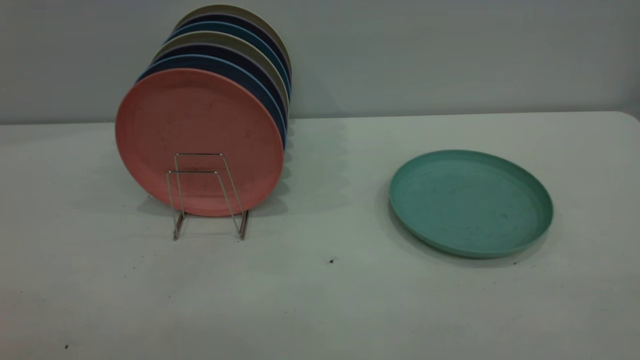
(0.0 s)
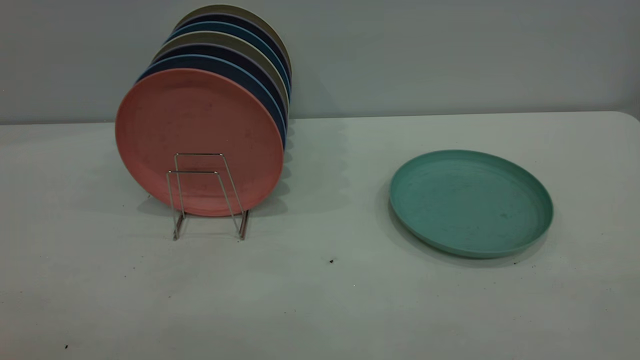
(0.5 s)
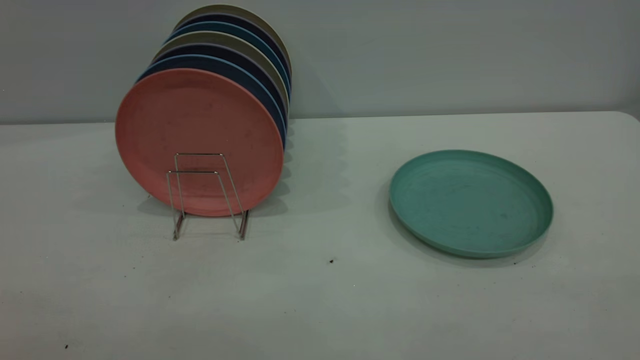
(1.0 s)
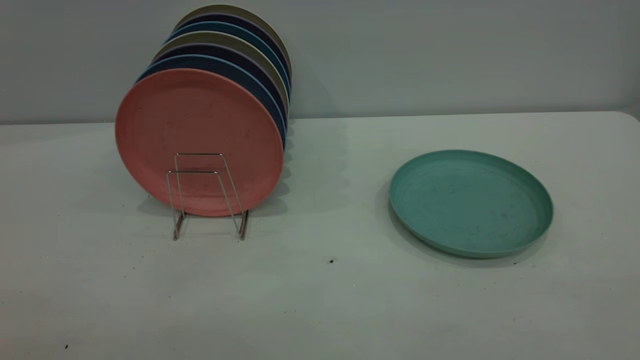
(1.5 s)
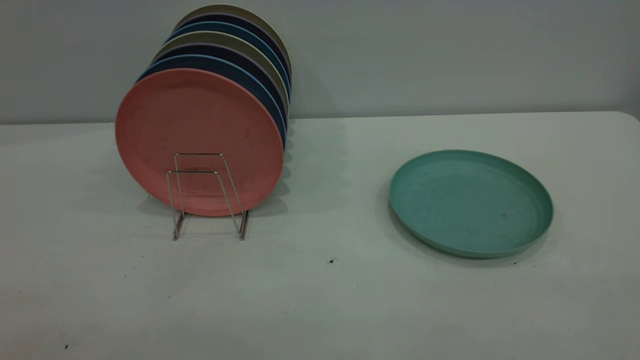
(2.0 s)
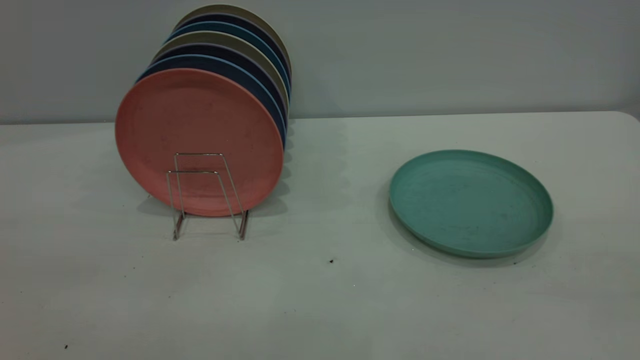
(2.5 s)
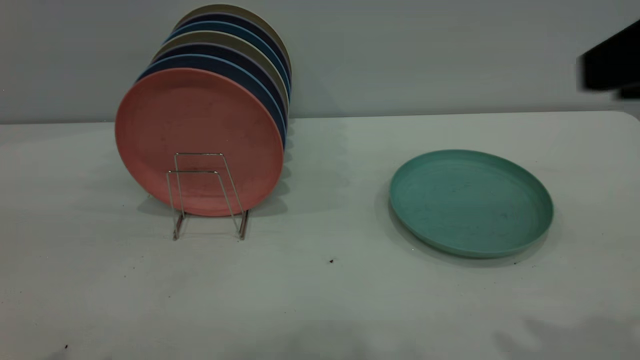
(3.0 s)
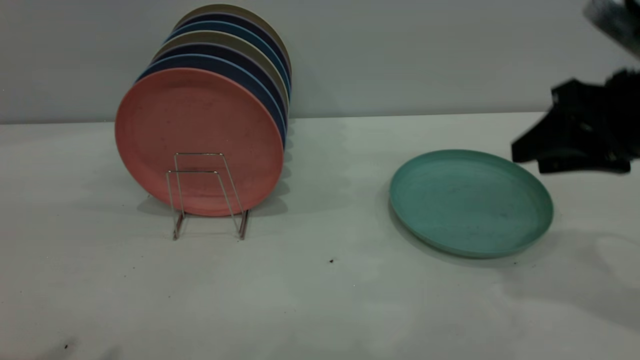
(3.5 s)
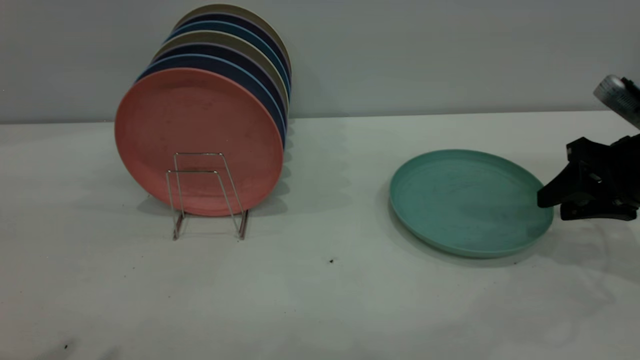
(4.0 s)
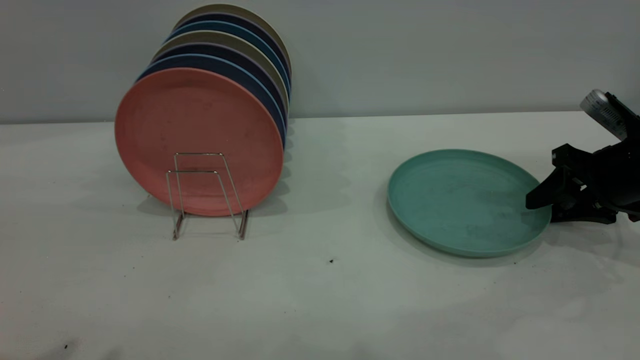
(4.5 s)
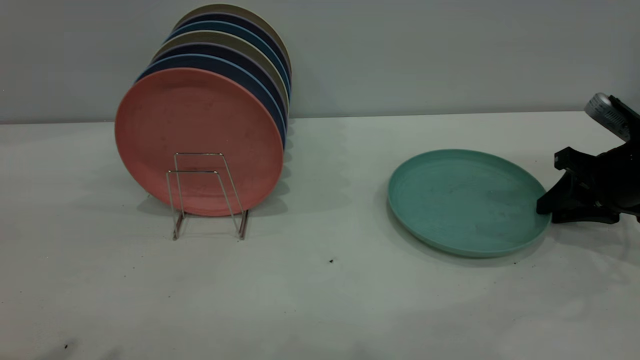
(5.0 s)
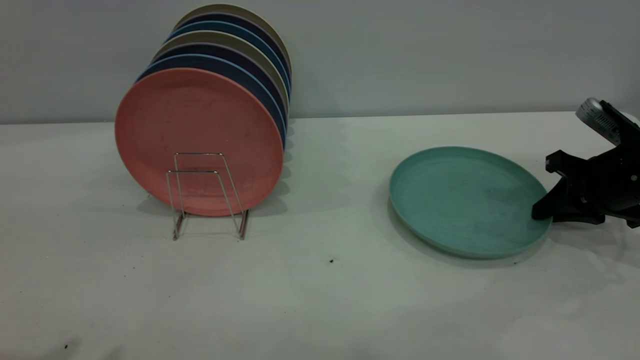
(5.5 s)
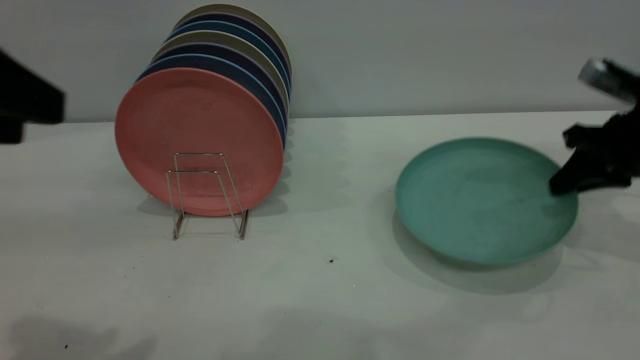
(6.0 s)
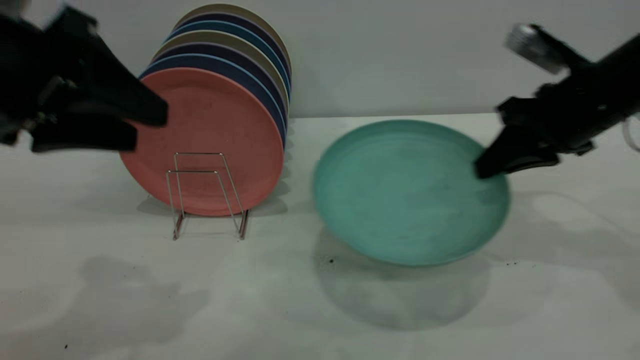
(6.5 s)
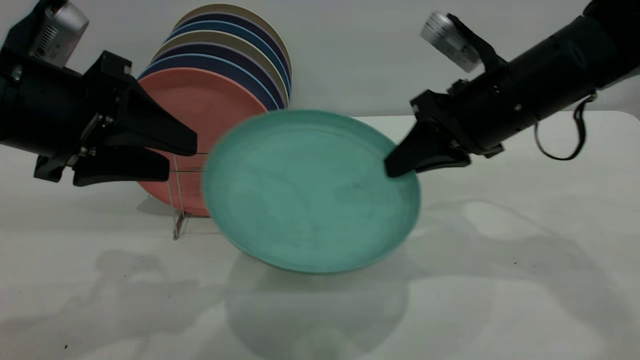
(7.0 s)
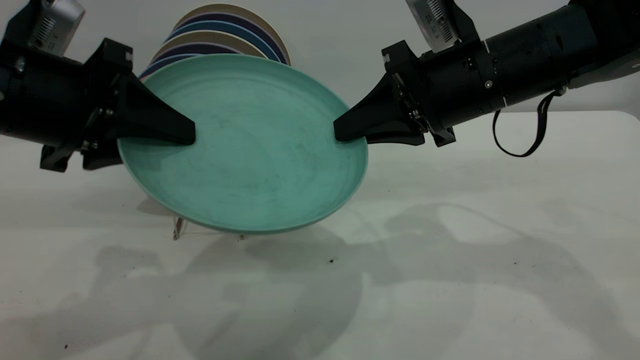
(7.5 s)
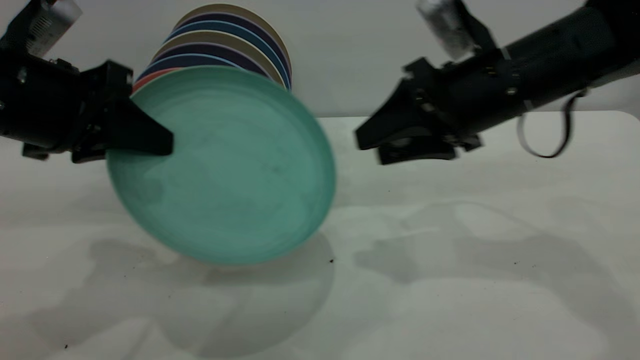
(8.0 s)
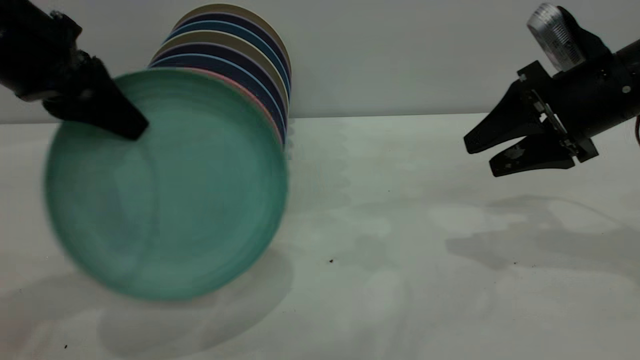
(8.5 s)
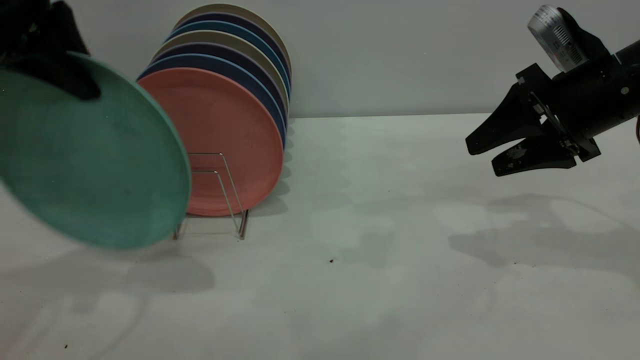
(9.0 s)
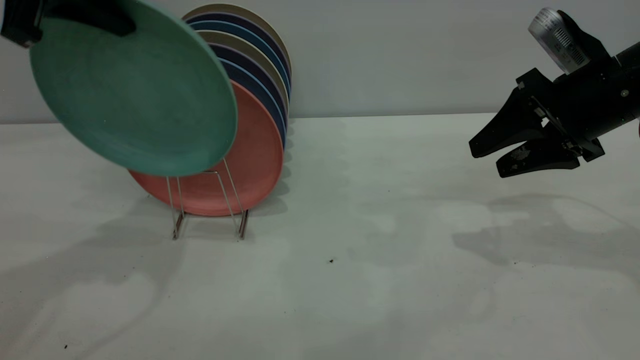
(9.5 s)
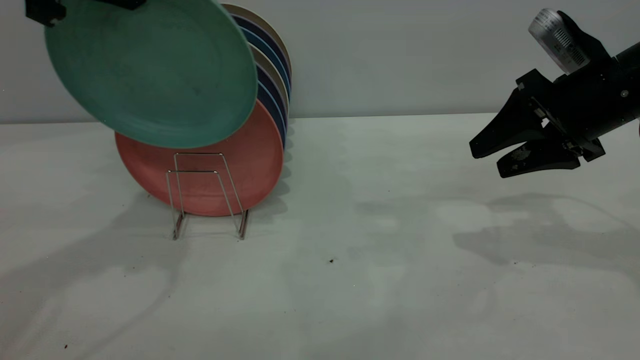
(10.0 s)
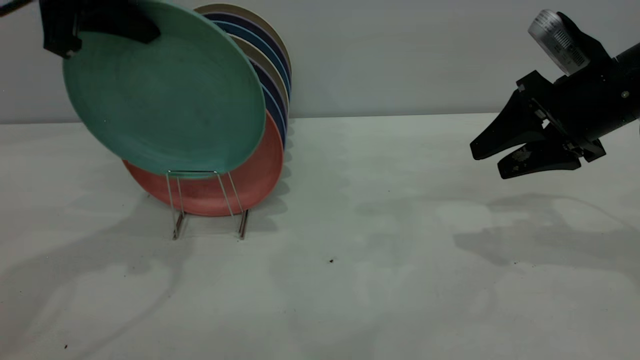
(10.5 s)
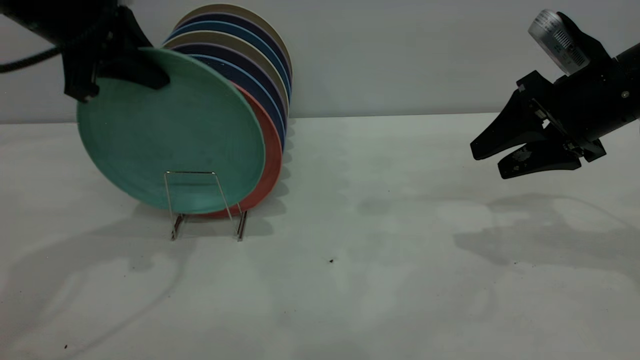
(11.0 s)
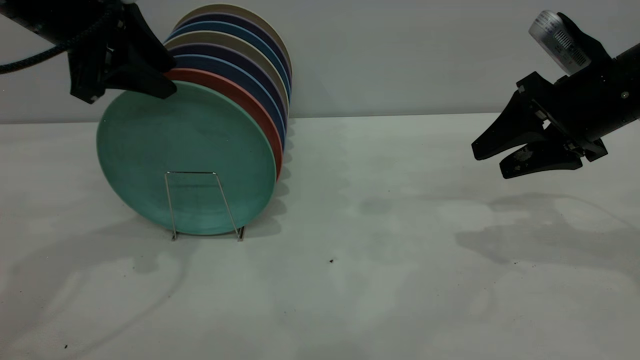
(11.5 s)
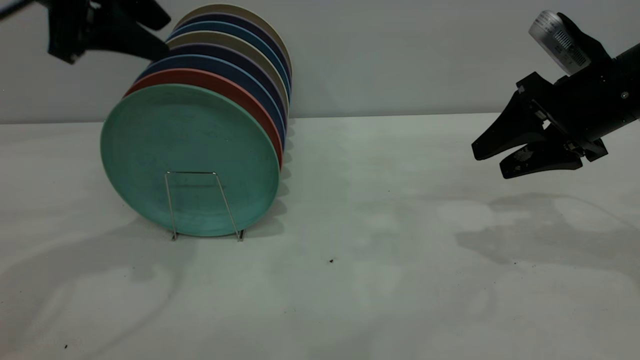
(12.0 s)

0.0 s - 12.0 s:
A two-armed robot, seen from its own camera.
Task of the whole recording: the right gripper grasp the green plate, the right gripper pass the green plate to the left gripper, and the left gripper place the green plate on the plate rack.
Step, 0.0 s - 6.0 s: Pick up the plate with the right gripper.
Step, 6.5 s - 7.5 s: Pass the plate from the right gripper to the left gripper.
Step, 8.0 s - 11.5 s: Place the plate on the shelf.
2.0 s - 4.0 s: The right gripper travels forward and downward by some 40 cm.
4.0 s - 6.0 s: The left gripper shifts by approximately 5 cm. Meanwhile the right gripper closes up.
6.0 s - 8.0 s: The left gripper shifts some 15 cm forward and downward, and closes its fingers; the right gripper moves to the left, some 15 cm, and opens its fingers.
8.0 s - 10.0 s: The right gripper travels to the right by about 10 cm, while the left gripper is displaced upward and forward by some 15 cm.
10.0 s - 12.0 s: The left gripper opens.

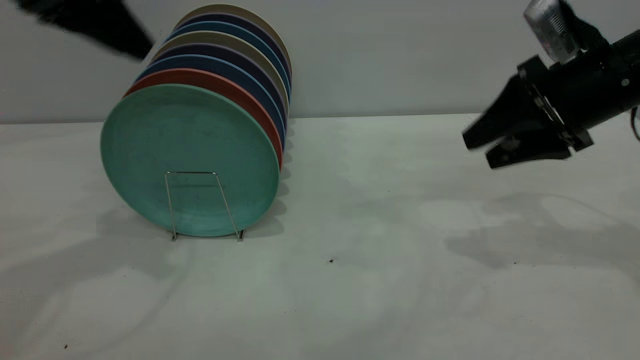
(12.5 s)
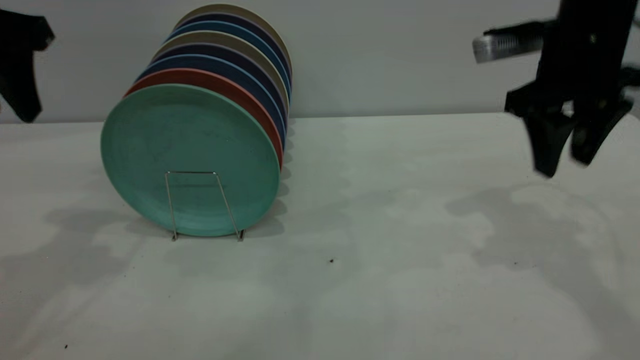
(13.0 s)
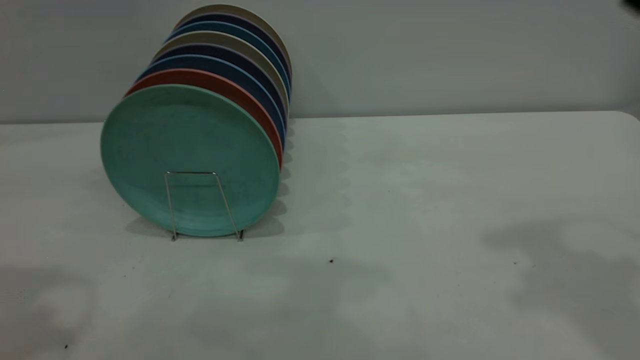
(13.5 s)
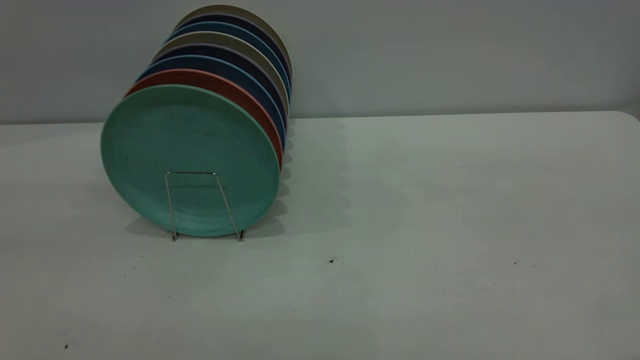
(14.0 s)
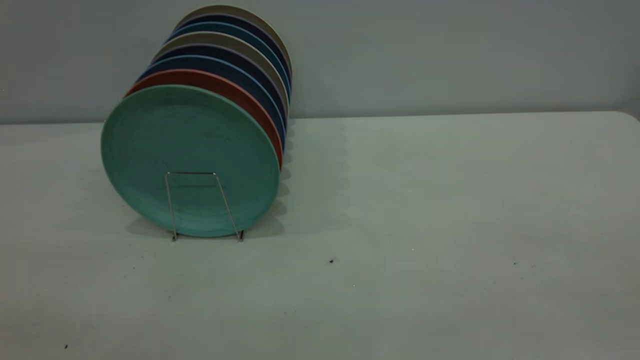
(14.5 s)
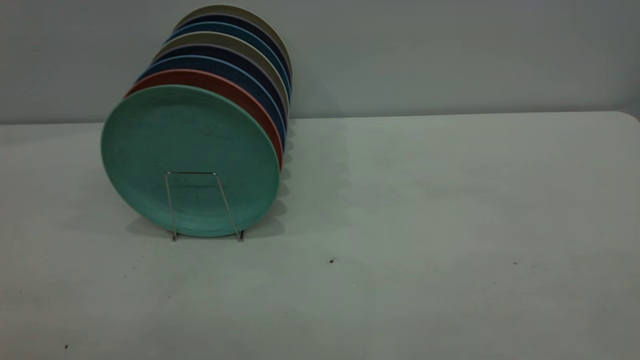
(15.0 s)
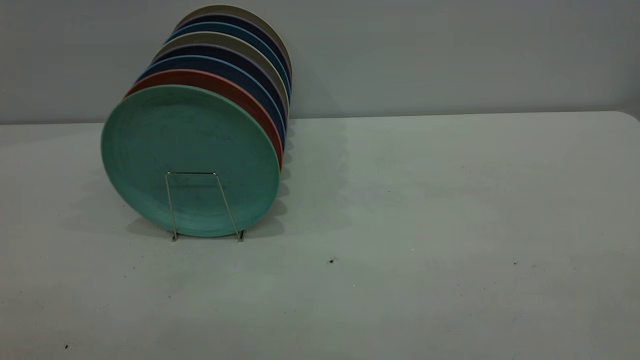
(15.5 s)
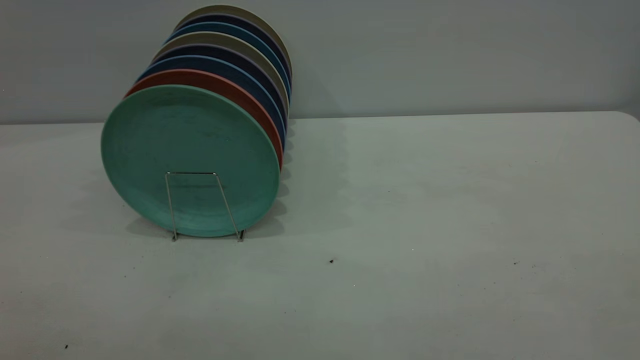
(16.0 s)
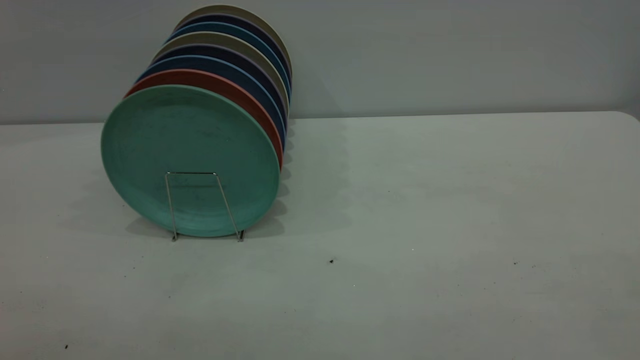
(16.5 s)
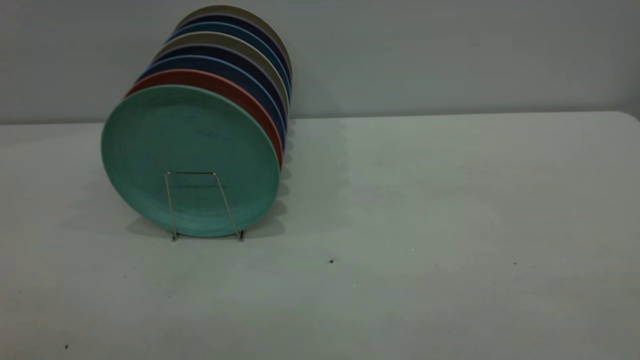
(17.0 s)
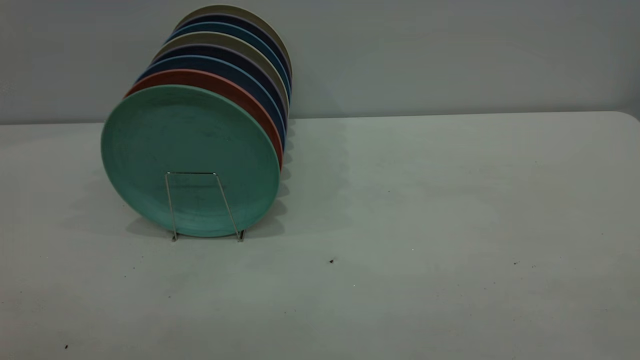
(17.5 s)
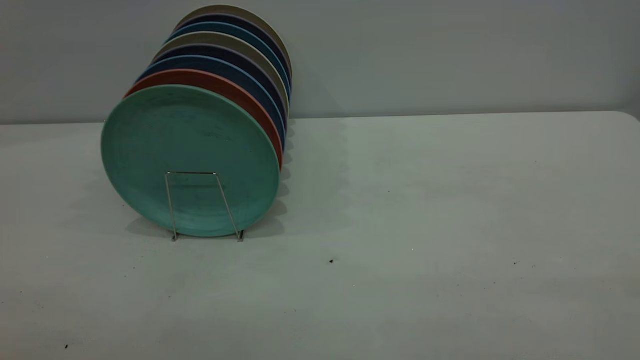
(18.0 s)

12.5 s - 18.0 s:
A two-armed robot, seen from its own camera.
Task of the whole recording: the right gripper grasp the green plate, the right gripper pass the green plate to the left gripper, and the left gripper place the green plate on the plate rack.
12.5 s - 14.5 s: The right gripper goes about 40 cm backward and upward. The left gripper shifts about 35 cm backward.

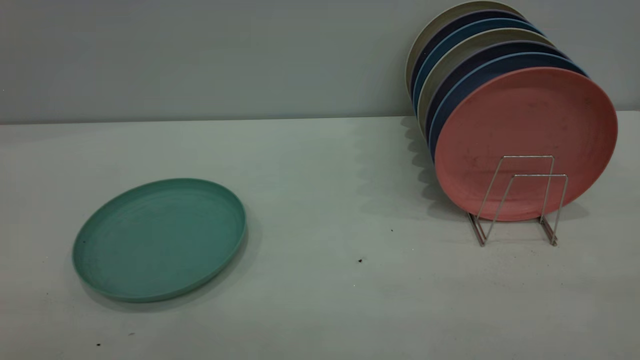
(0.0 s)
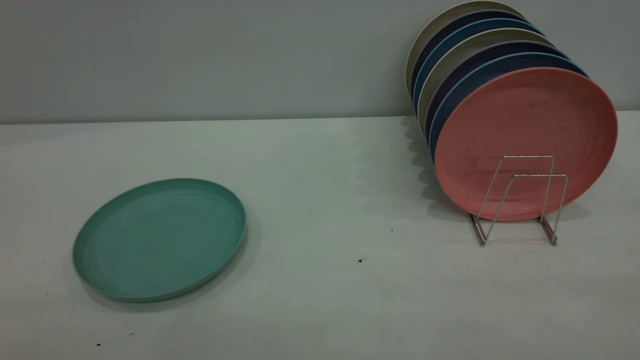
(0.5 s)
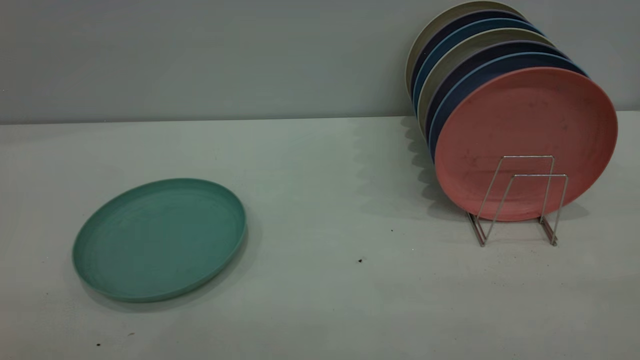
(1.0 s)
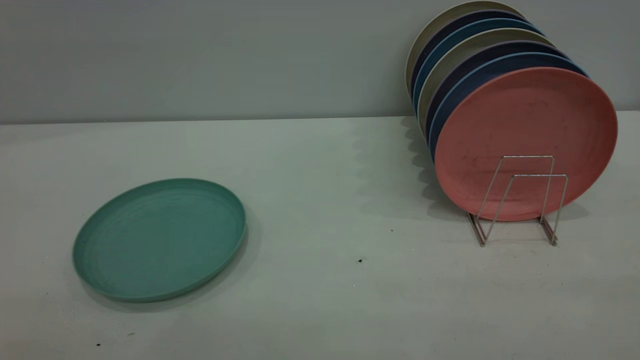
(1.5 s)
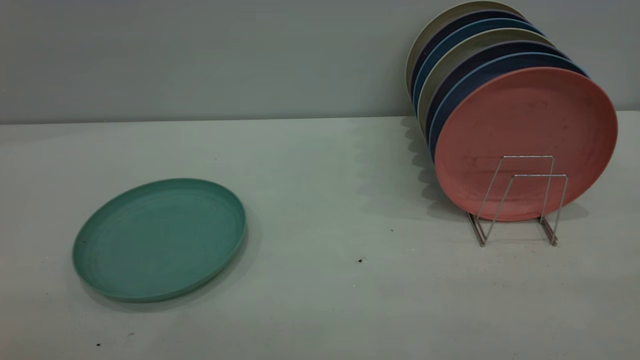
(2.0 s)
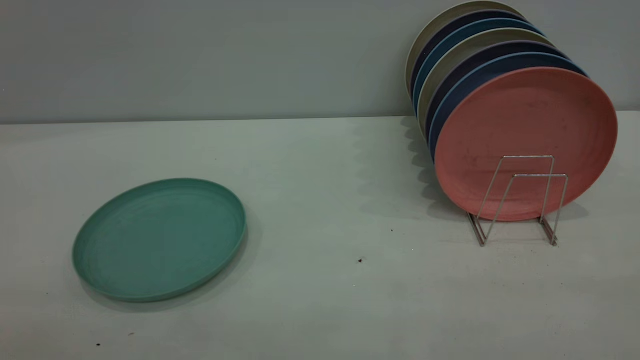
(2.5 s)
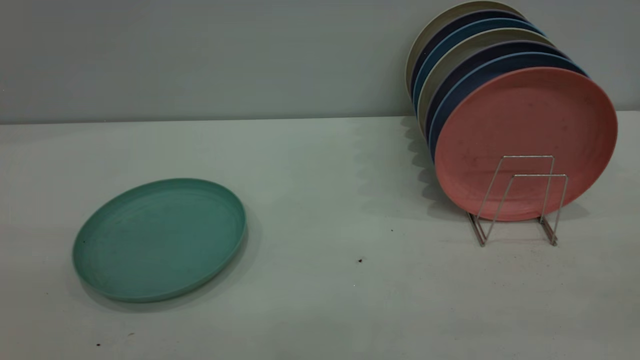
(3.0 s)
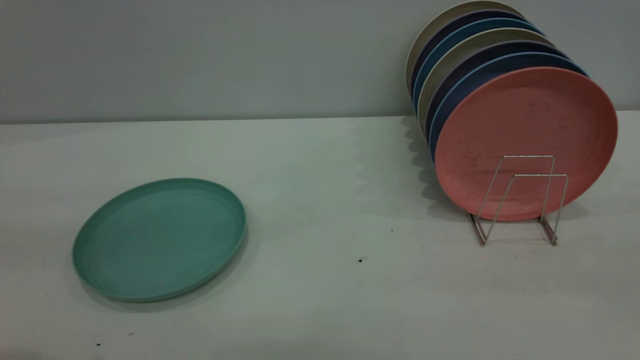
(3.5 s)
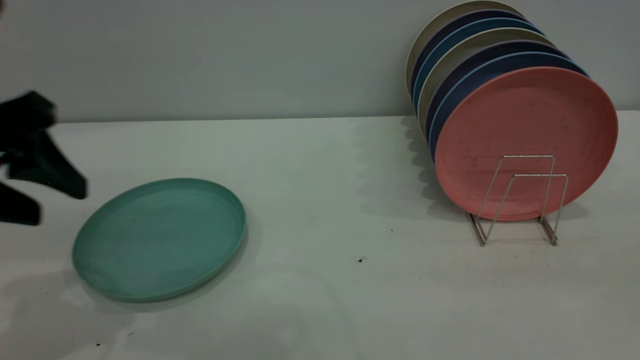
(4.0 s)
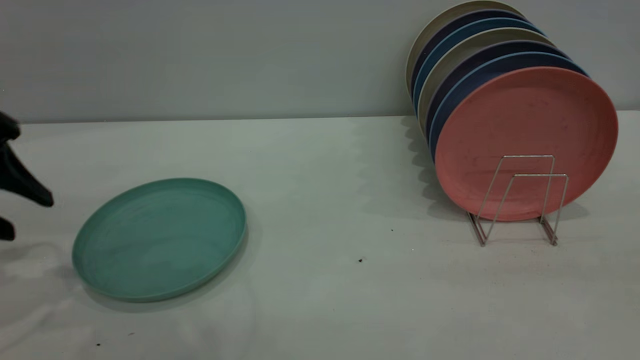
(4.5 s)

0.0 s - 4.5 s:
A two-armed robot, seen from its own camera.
Task of the whole recording: the left gripper grasp the green plate, the left gripper pass the green plate to the right gripper, and the right gripper place the green plate on the plate rack.
0.0 s - 2.0 s: The two grippers keep their place.
2.0 s - 4.5 s: The left gripper is displaced forward and downward by some 35 cm.
